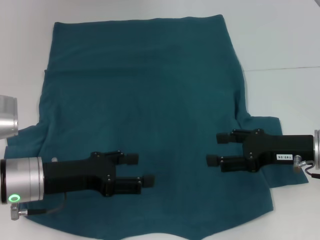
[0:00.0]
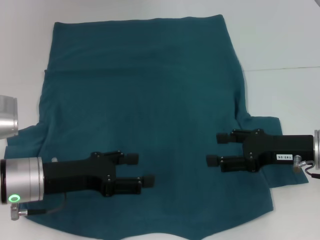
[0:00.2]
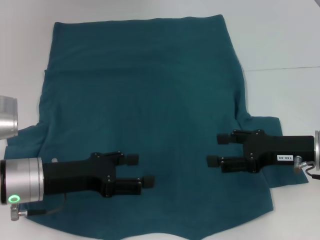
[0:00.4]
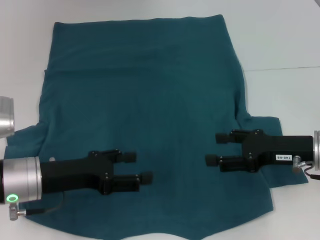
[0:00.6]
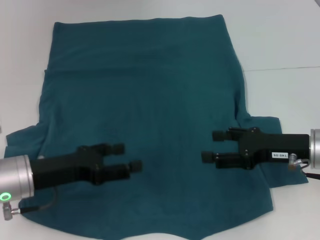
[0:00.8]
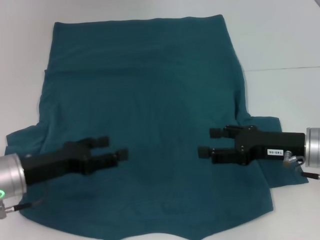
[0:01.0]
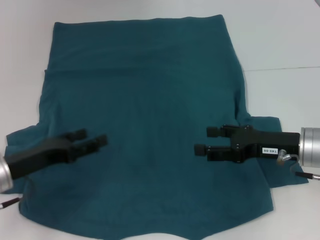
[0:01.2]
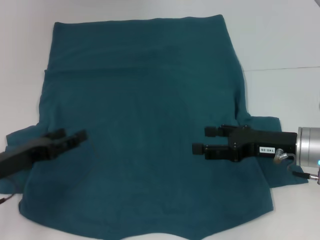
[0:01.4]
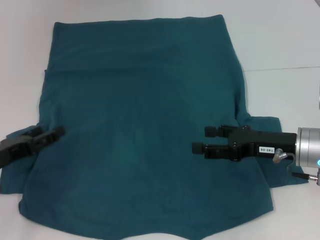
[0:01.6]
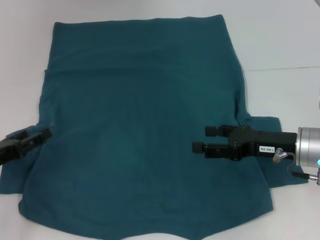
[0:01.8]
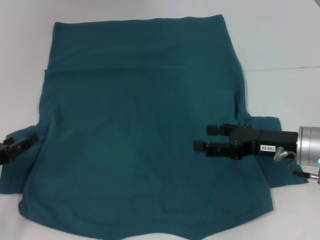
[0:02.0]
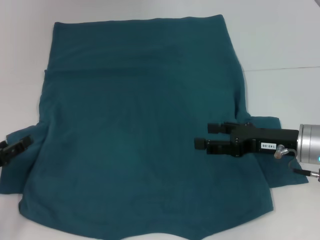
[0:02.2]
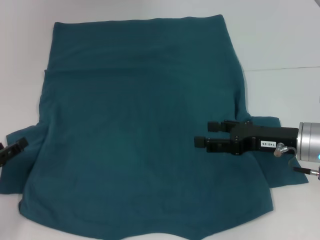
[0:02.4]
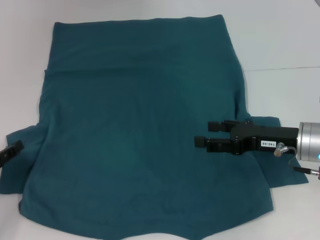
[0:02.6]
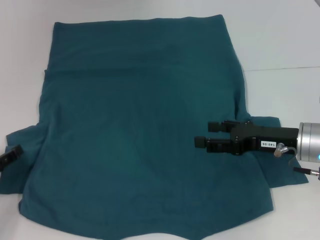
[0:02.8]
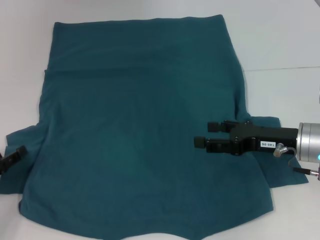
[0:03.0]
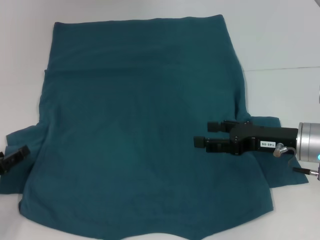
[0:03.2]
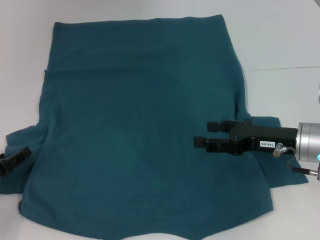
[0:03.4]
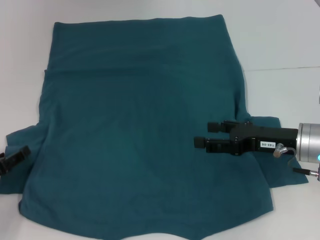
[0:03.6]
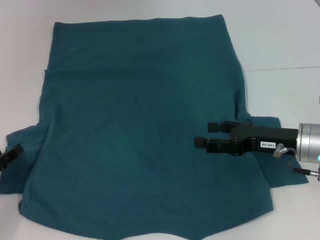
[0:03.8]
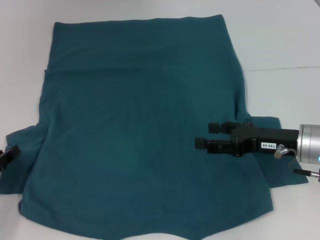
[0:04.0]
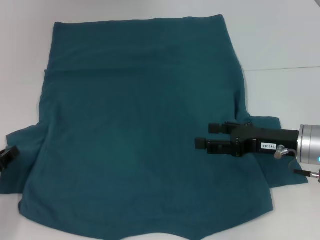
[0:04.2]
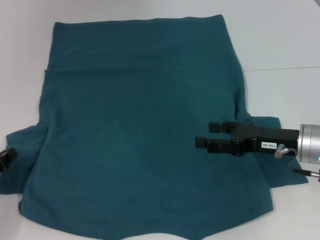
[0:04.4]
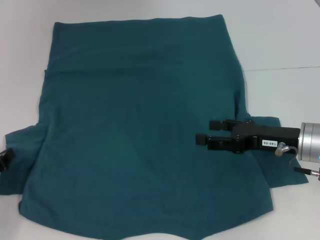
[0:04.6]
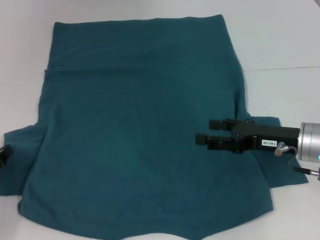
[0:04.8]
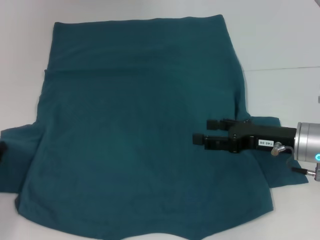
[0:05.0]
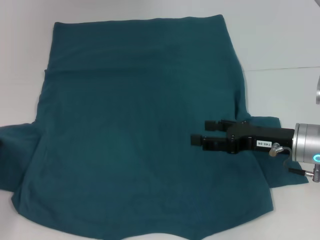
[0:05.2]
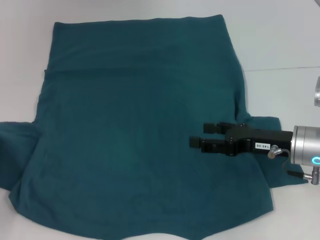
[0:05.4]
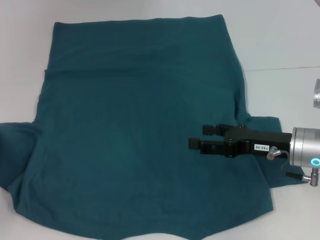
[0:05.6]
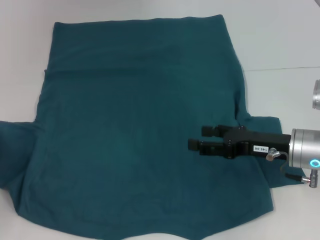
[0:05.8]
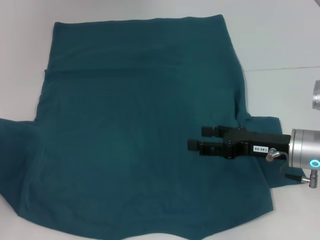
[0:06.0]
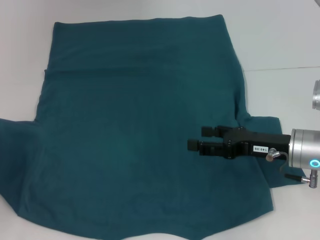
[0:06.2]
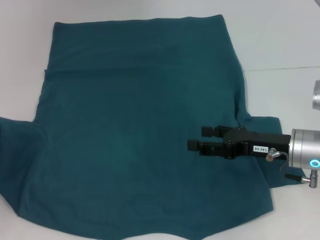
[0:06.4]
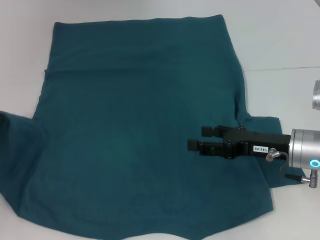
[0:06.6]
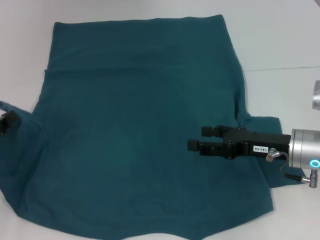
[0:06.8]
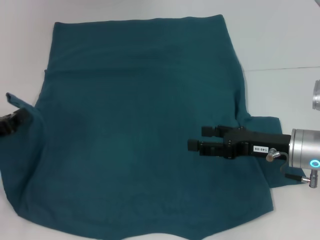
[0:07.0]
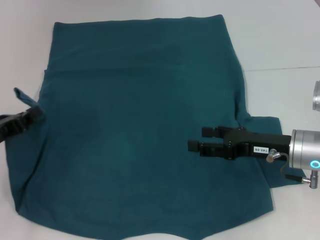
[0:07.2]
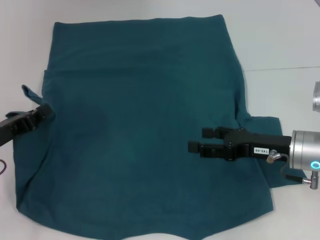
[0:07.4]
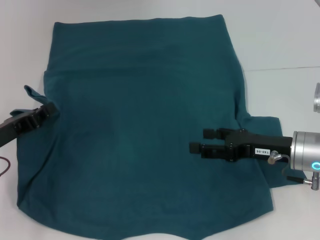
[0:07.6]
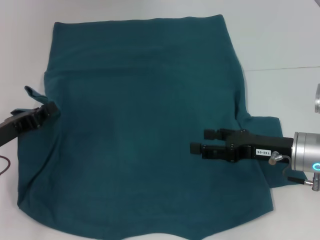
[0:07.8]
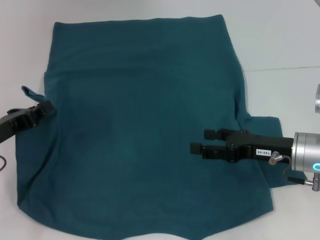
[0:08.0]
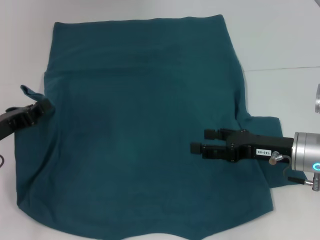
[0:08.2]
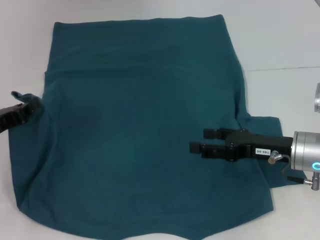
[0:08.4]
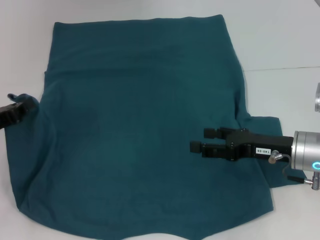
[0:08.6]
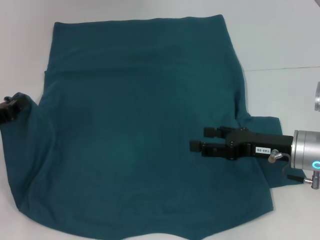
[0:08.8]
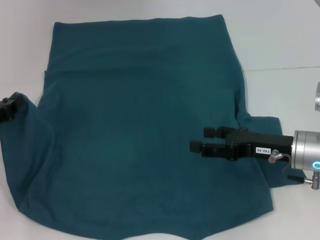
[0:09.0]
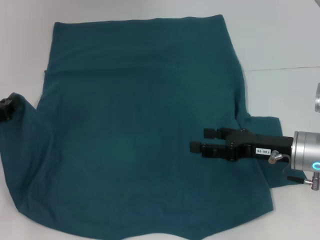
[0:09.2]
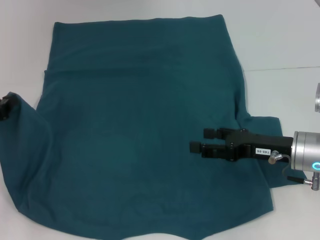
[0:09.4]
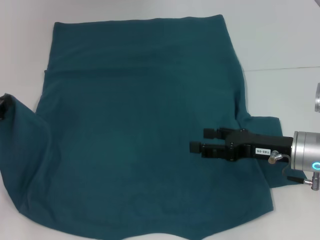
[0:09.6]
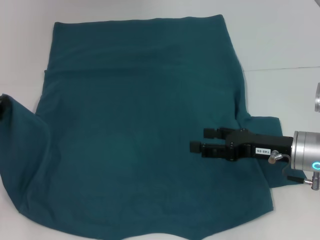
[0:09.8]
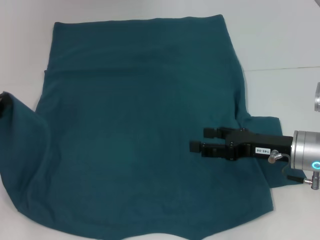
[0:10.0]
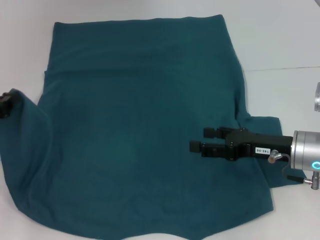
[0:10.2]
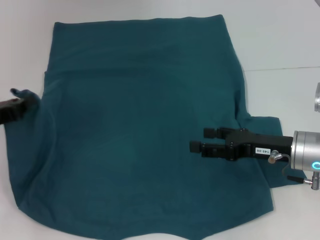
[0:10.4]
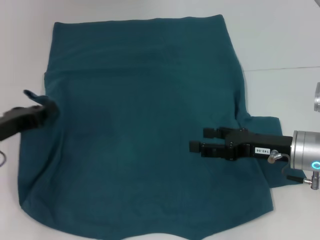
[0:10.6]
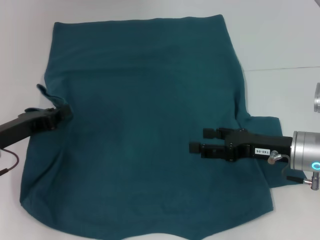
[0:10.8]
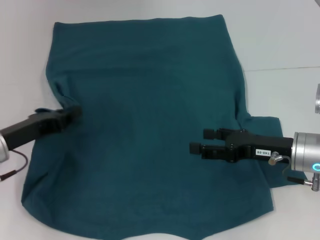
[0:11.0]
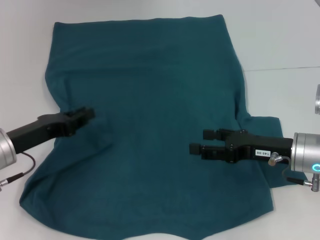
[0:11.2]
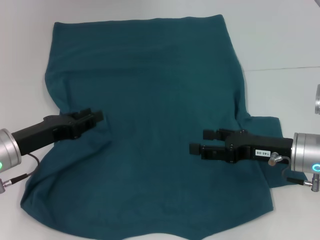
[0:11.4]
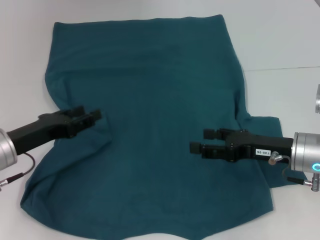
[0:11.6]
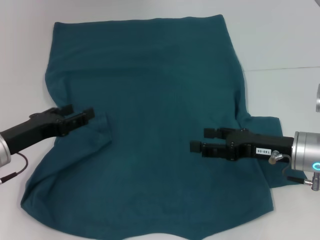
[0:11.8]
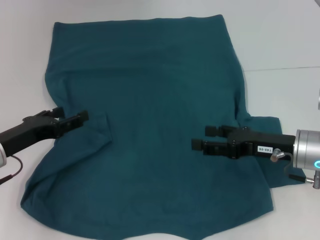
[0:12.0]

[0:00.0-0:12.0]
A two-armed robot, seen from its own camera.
Step, 0:00.0 to 0:11.4: Fold the bottom left sleeve with your left hand.
0:00.0 to 0:01.6: The left gripper is displaced to the left by about 10 cm.
0:01.6 to 0:03.0: The left gripper changes place by some 5 cm.
0:04.4 to 0:06.0: The left gripper moves approximately 5 cm.
0:06.0 to 0:07.6: The left gripper shifts some 5 cm to the right.
0:07.6 to 0:10.4: The grippers make only small movements.
0:10.4 to 0:12.0: The left gripper shifts by roughly 5 cm, and opens its fingers.

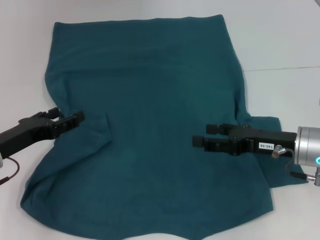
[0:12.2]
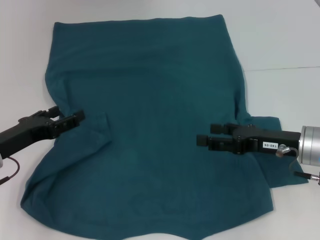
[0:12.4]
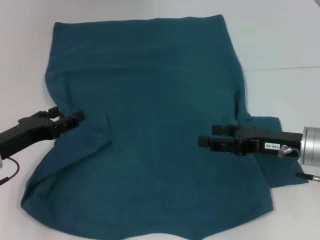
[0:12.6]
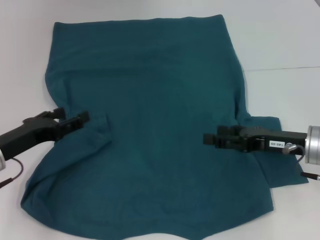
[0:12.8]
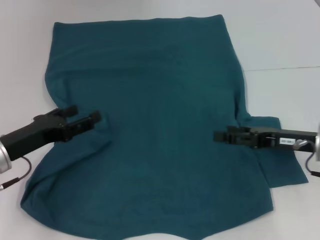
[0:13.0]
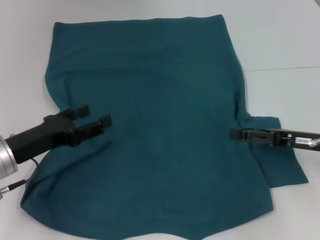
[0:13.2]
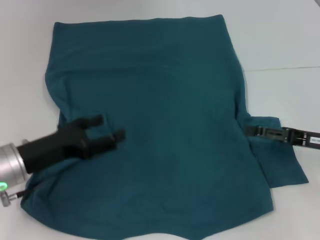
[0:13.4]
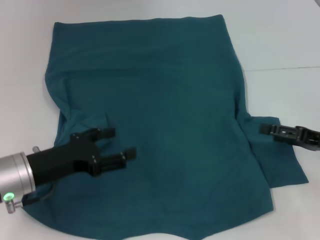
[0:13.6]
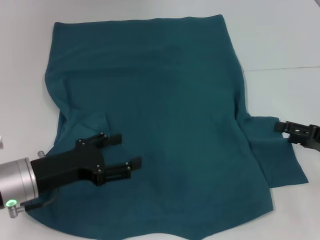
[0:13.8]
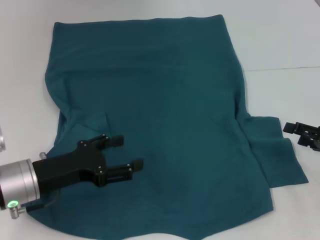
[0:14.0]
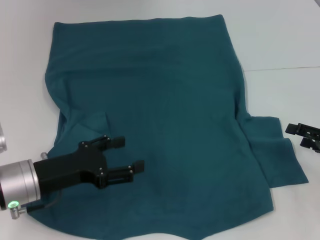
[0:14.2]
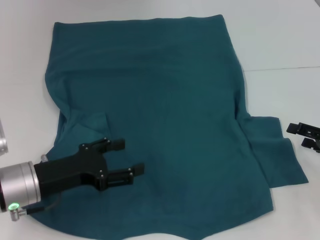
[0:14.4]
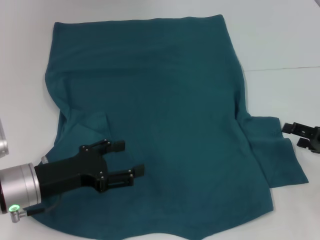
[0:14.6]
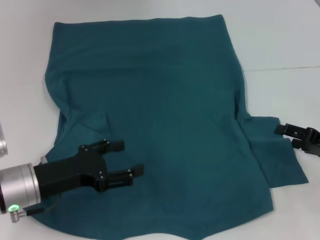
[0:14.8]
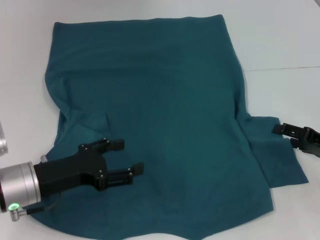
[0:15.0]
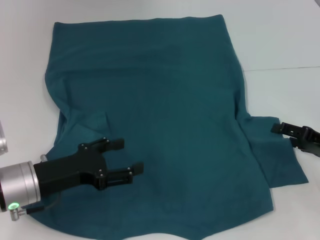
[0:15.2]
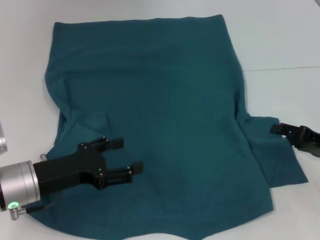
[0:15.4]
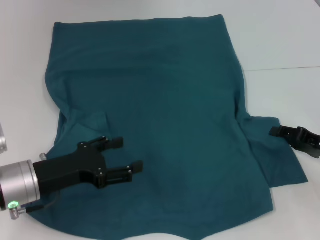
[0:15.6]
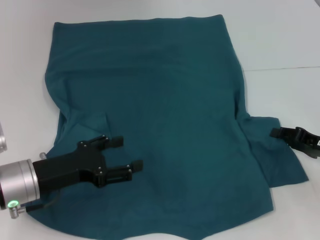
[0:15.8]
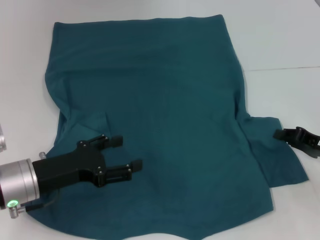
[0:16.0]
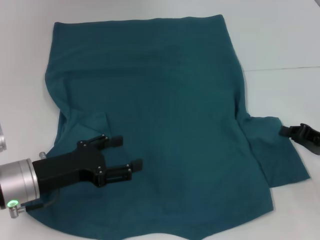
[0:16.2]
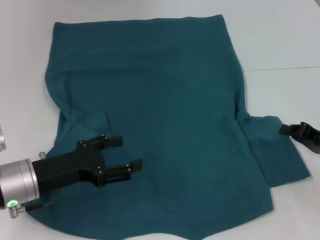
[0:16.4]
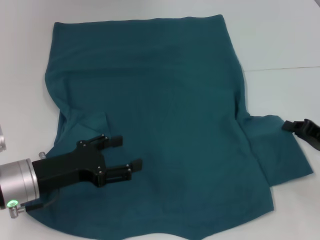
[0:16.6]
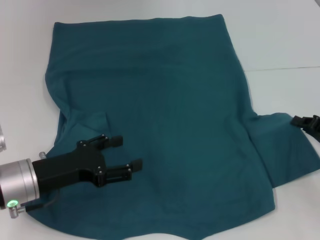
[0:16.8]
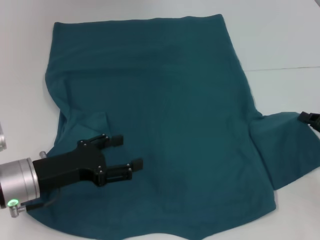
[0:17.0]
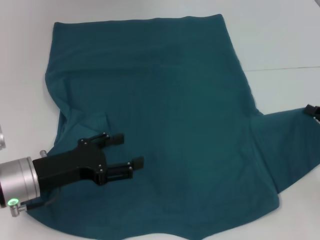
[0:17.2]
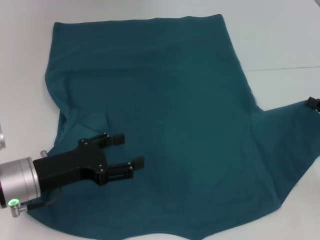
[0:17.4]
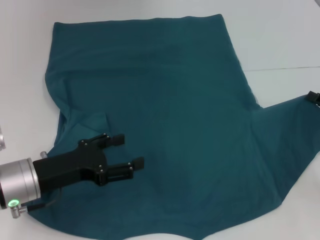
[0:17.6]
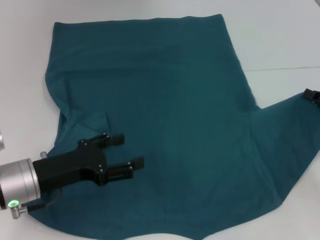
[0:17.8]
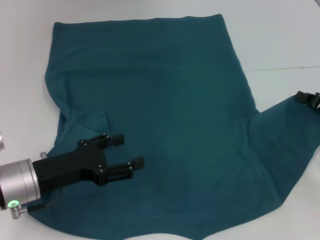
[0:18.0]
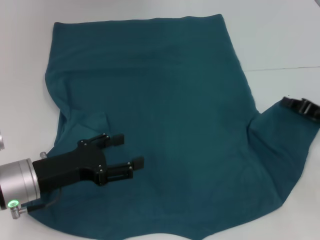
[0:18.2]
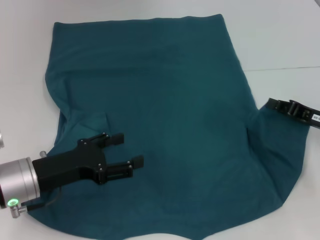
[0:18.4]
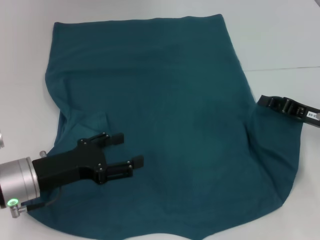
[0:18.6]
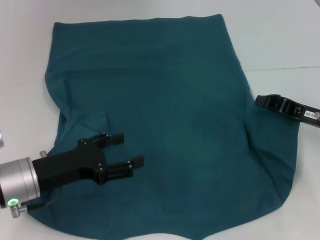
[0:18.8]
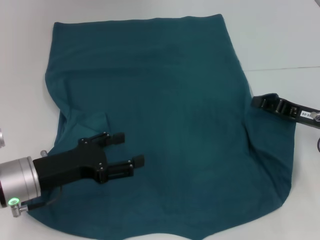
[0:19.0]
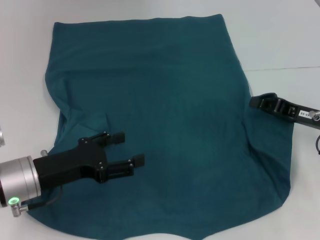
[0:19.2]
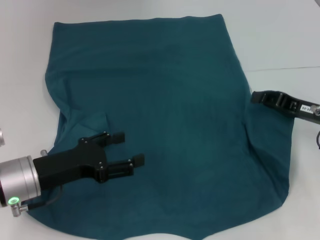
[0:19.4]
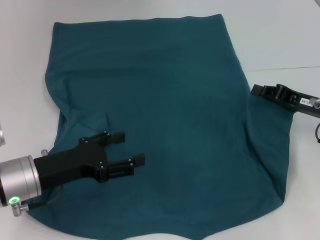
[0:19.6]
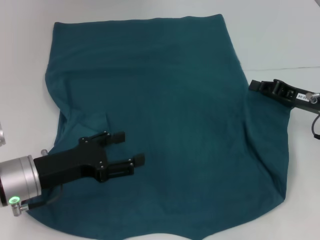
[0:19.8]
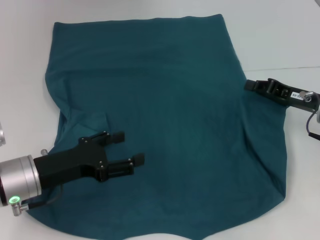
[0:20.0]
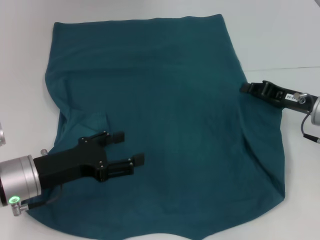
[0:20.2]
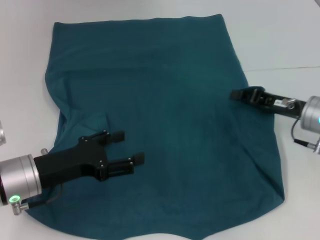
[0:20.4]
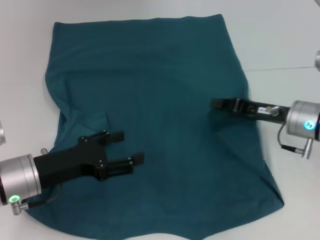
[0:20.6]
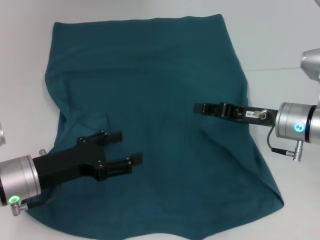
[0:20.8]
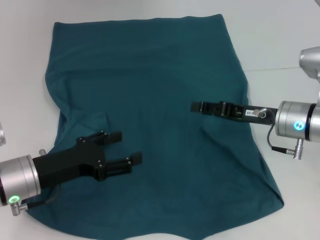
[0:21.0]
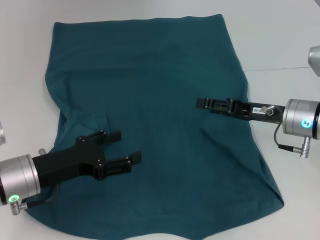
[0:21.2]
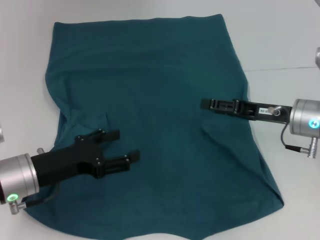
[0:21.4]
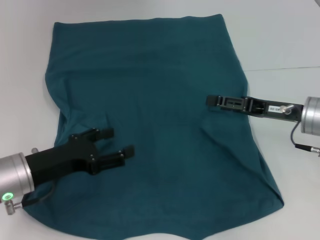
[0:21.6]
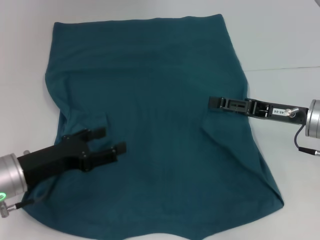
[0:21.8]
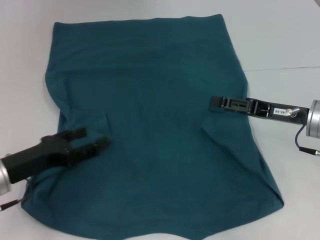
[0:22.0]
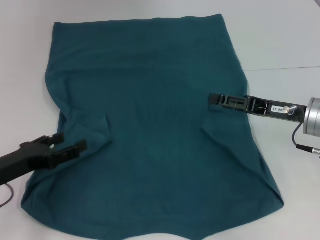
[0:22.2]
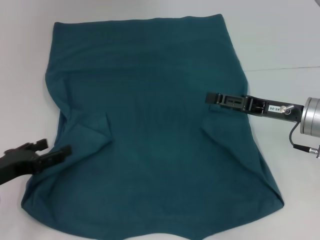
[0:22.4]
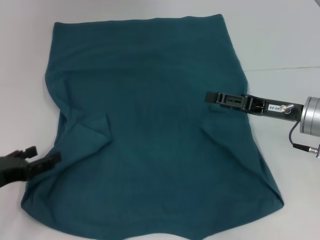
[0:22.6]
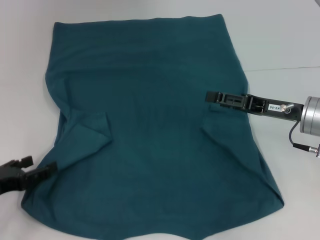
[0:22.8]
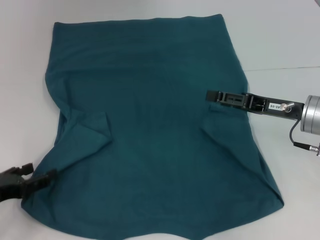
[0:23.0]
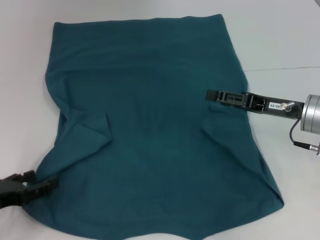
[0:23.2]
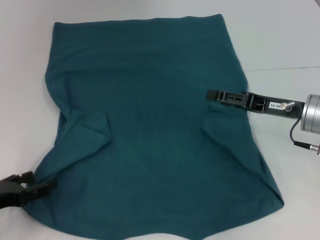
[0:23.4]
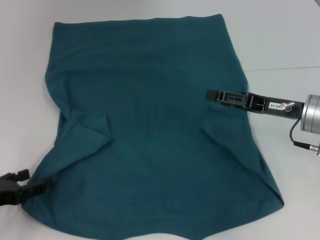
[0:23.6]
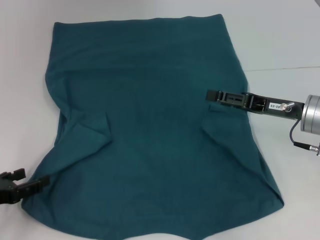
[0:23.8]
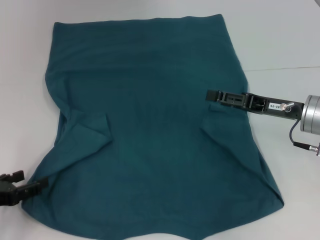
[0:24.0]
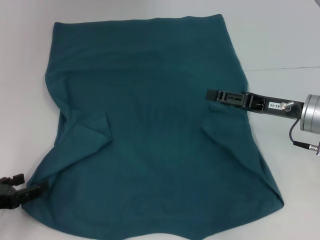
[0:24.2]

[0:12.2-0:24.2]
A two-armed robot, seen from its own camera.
Step, 0:12.2 to 0:21.0: Fold the bottom right sleeve to the right.
0:12.2 to 0:13.8: The left gripper shifts some 5 cm to the right. Meanwhile the right gripper heads to the right, covering some 10 cm.
0:13.8 to 0:15.2: The grippers make only small movements.
0:15.2 to 0:16.6: The right gripper closes up.
0:16.6 to 0:18.2: The grippers make only small movements.
0:18.2 to 0:19.8: The right gripper ends up roughly 5 cm from where it was.
0:19.8 to 0:21.2: The right gripper travels to the left by some 5 cm, and opens up.
0:21.2 to 0:22.6: The left gripper is displaced to the left by some 10 cm. The right gripper opens.
0:22.6 to 0:24.2: There are only small adjustments of the grippers.
